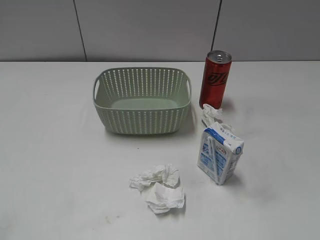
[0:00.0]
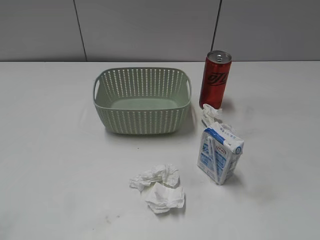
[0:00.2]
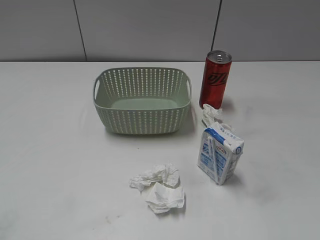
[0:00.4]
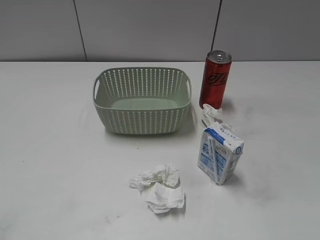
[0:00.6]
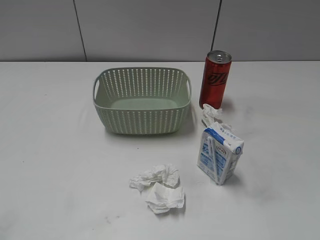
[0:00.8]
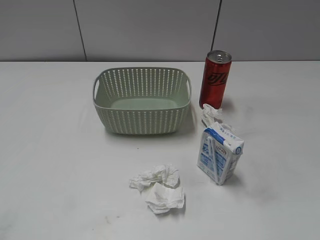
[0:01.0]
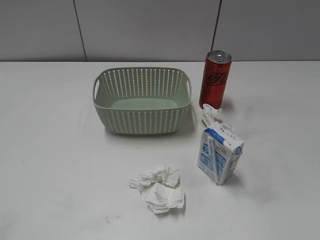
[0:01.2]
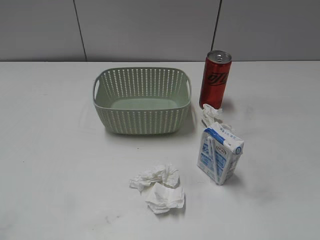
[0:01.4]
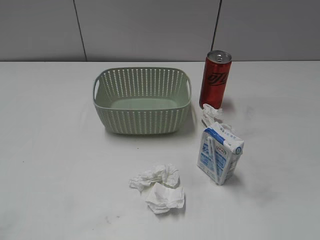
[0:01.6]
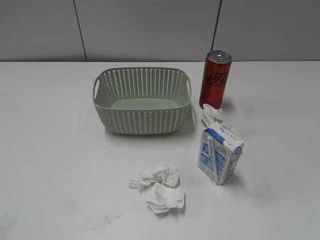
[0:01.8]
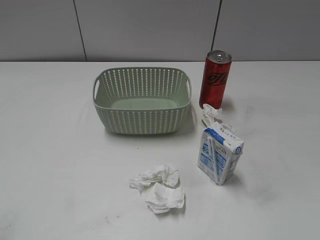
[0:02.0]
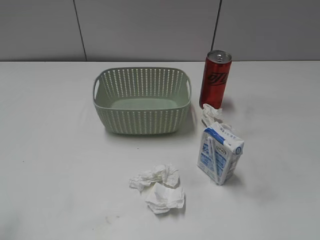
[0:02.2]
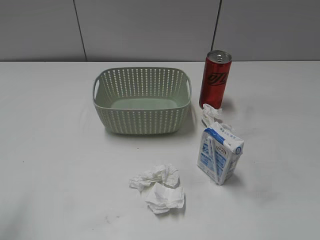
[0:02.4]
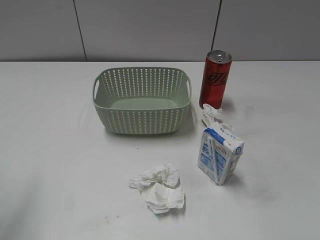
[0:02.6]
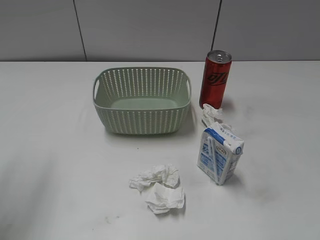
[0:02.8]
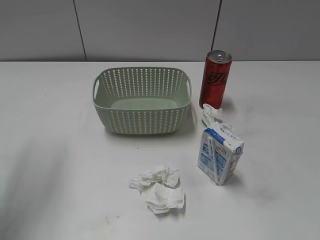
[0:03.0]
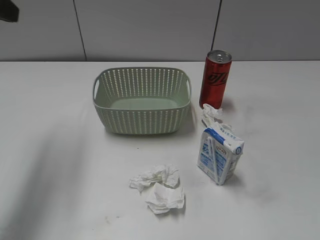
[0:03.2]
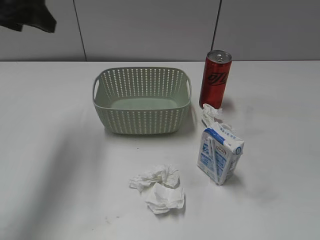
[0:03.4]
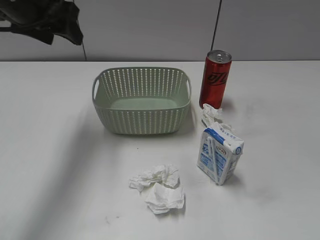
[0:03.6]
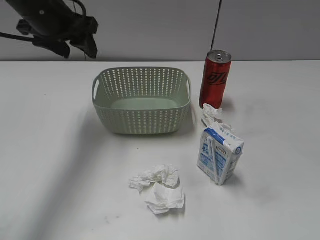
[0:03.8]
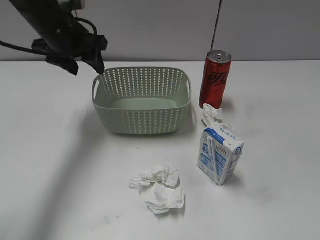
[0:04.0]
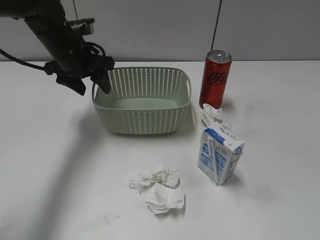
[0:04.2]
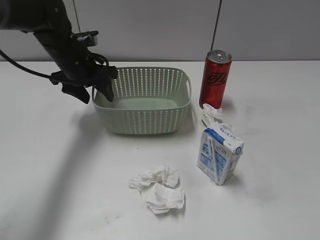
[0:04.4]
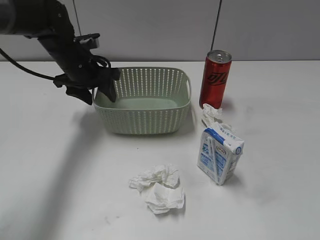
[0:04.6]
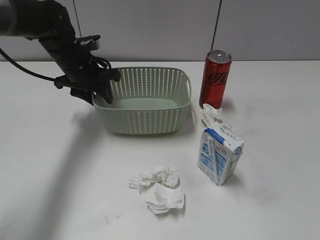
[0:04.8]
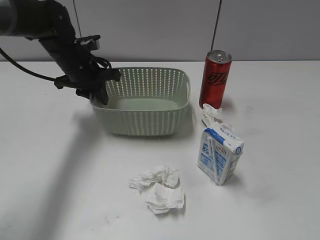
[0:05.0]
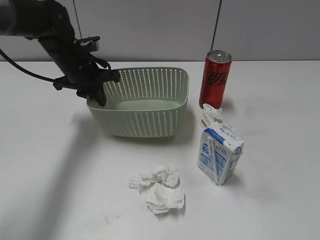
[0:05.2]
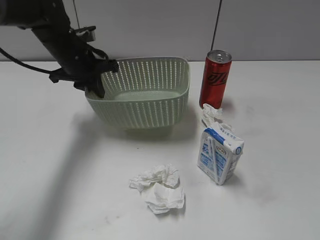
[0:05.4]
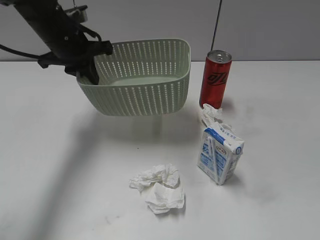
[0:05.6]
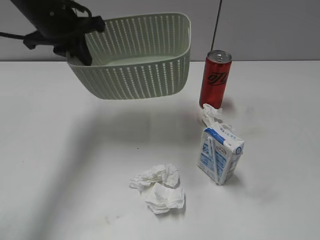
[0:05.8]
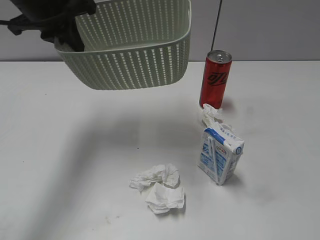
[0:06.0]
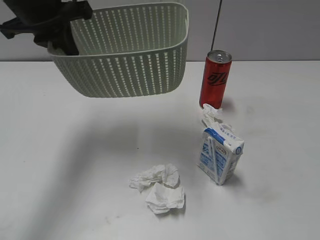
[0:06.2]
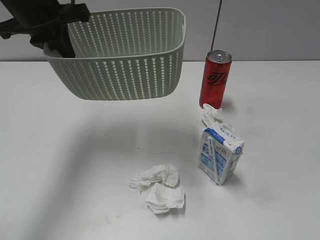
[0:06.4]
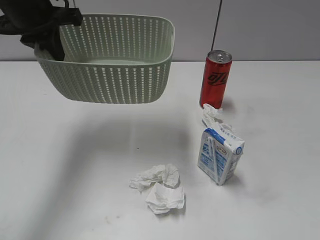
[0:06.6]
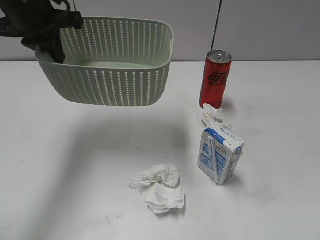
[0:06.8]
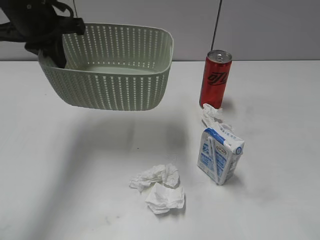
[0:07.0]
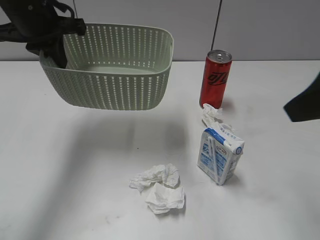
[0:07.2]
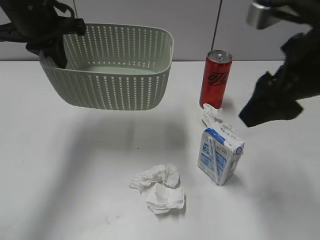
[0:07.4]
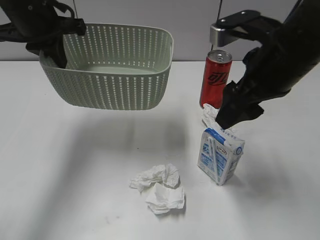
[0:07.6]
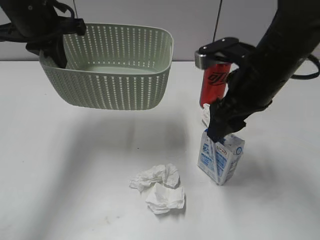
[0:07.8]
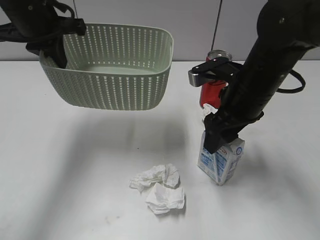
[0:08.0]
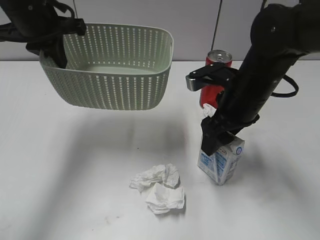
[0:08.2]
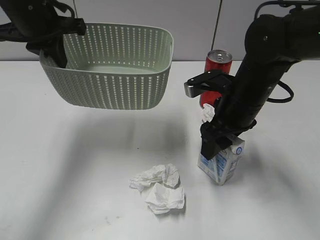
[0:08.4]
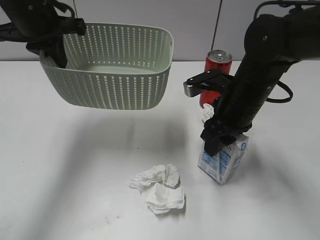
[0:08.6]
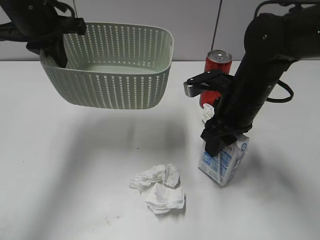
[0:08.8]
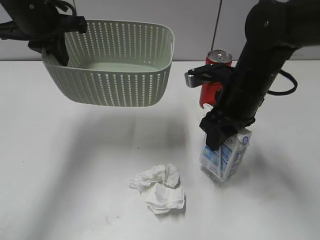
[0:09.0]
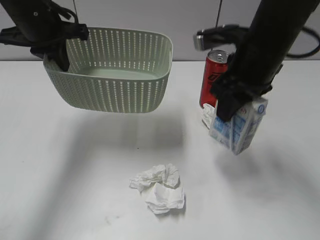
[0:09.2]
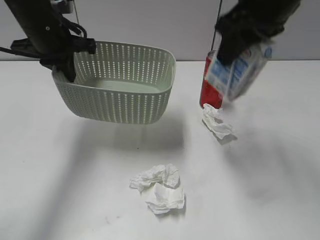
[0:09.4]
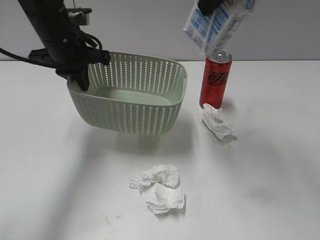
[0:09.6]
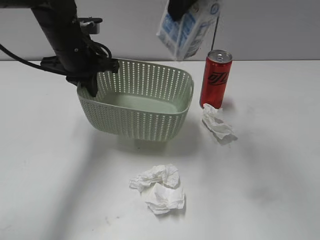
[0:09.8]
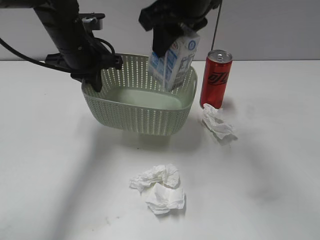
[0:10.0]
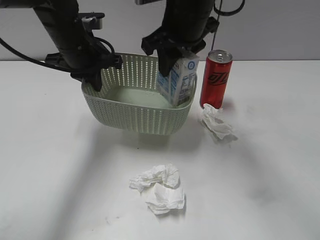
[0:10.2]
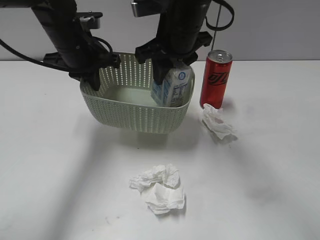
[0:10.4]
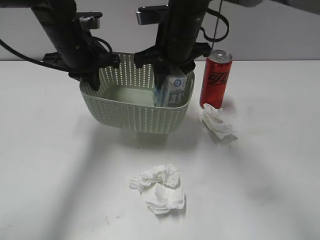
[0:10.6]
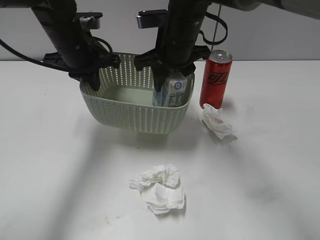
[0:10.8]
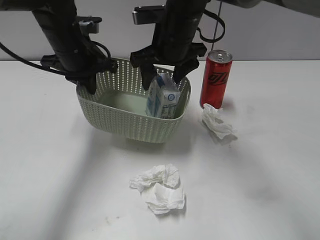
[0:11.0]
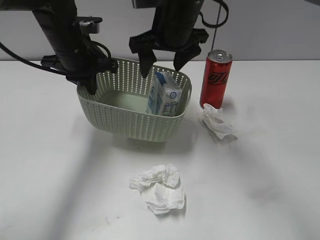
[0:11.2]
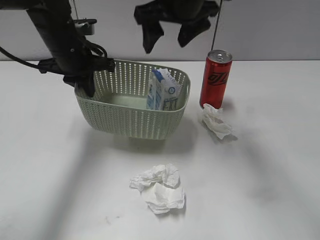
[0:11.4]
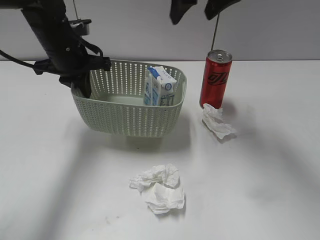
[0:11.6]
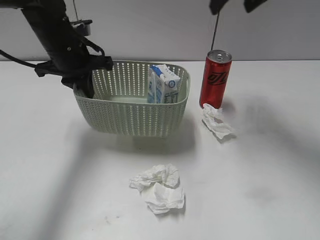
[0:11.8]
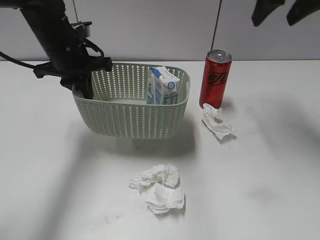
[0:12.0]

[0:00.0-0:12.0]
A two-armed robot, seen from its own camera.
Step, 0:03.2 to 0:05.0: Grasp the basket with left gripper.
Step, 0:05.2 to 0:07.0: Lift the basket with left gripper.
Step, 0:07.2 to 0:08.8: Grasp the milk with right gripper.
Step, 0:09.0 to 0:11.2: Place the milk in the basket with right gripper.
0:01.6 to 0:03.0: The left gripper goes approximately 25 cm forward.
0:03.0 to 0:04.4: The left gripper moves downward, forward and to the right, about 30 cm.
0:04.4 to 0:06.0: The left gripper heads upward, covering some 15 cm, and closes its fingers.
0:06.0 to 0:07.6: The right gripper heads forward and to the left, covering some 30 cm.
0:07.6 to 0:09.0: The right gripper is displaced downward by about 10 cm, and closes up.
0:09.0 to 0:10.4: The left gripper travels downward by some 5 cm. Meanwhile the right gripper goes some 10 cm to the left and forward, and moves approximately 20 cm upward and comes back.
0:10.4 to 0:12.0: The right gripper shifts roughly 20 cm to the right and upward, and opens its fingers.

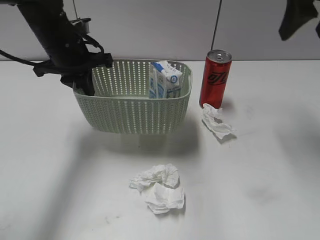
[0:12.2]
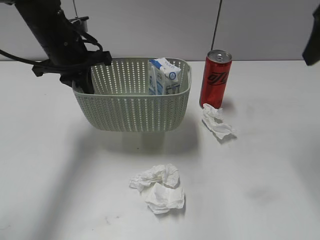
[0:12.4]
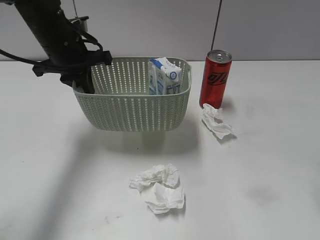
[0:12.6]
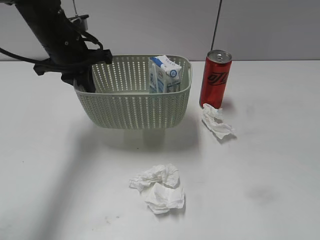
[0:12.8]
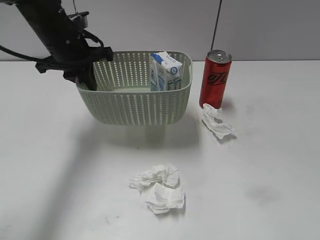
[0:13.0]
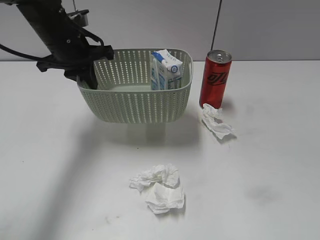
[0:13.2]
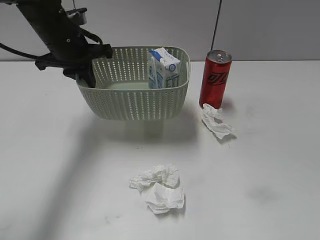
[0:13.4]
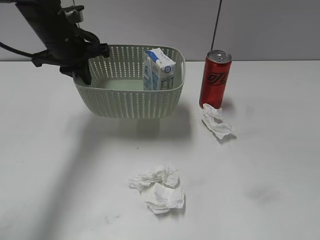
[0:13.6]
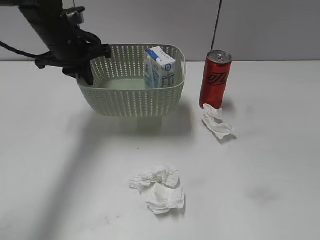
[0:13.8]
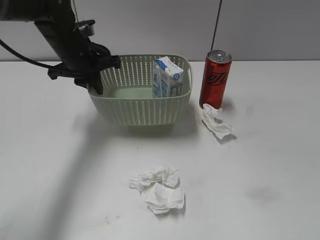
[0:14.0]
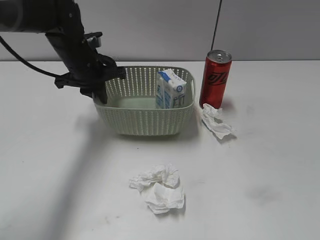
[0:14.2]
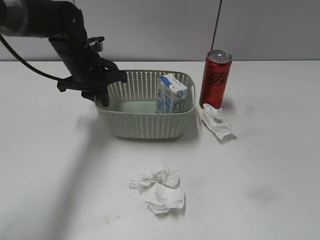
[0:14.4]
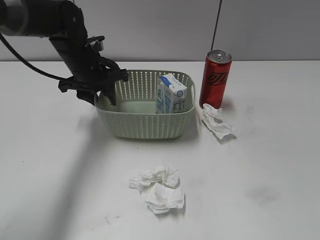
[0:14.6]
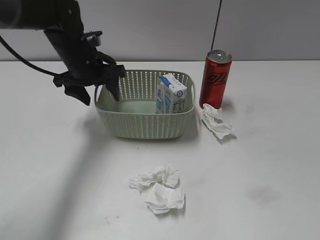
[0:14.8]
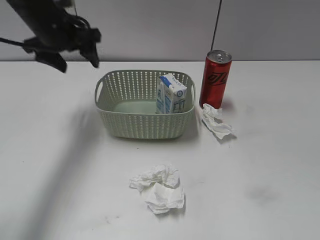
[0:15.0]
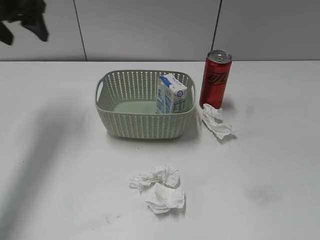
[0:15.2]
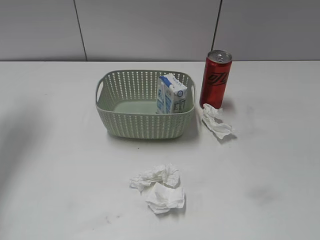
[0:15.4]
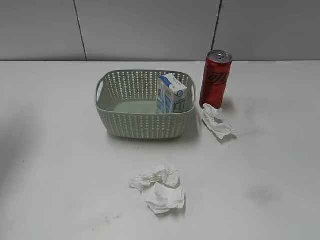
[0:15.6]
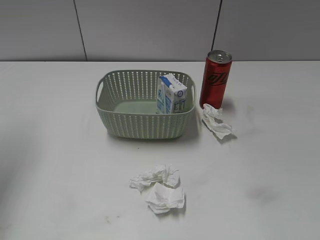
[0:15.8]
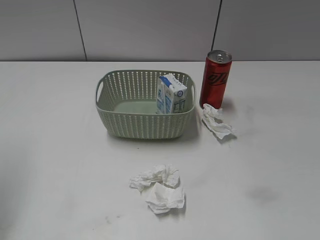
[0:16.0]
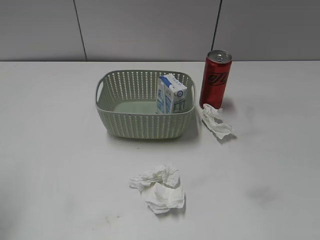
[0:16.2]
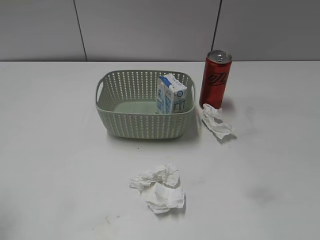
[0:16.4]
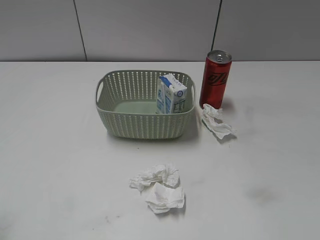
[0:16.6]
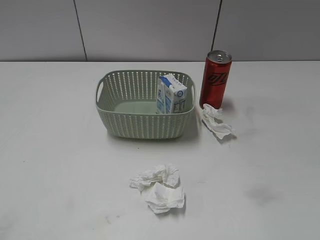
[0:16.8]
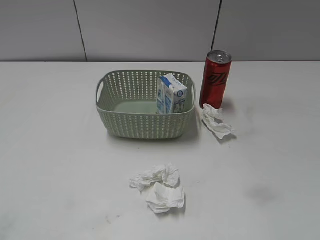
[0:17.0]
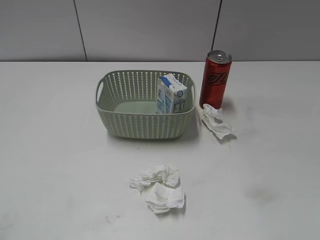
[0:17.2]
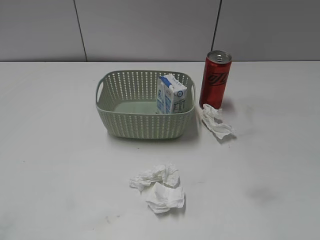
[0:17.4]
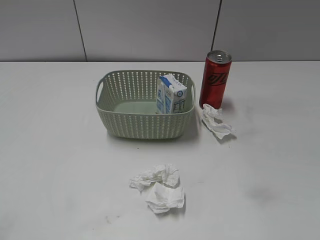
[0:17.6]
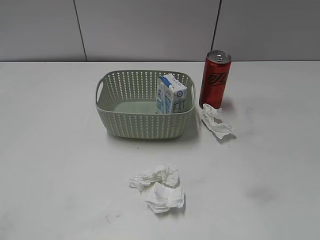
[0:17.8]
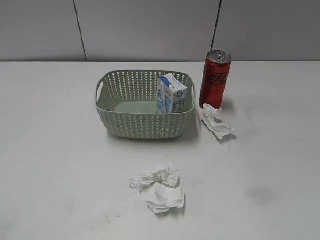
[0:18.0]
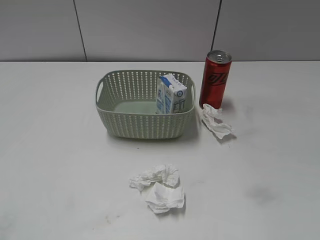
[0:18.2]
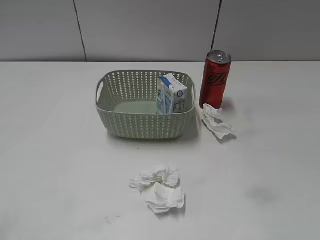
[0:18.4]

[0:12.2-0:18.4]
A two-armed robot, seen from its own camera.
Step, 0:12.2 to 0:14.8: Place the basket on the table with left gripper.
0:12.2 to 0:13.8: The right gripper is displaced backward by some 35 cm.
0:13.8 to 0:15.4: The left gripper goes about 20 cm to the left and upward, and opens up.
0:15.4 to 0:16.8: The left gripper travels backward by about 35 cm.

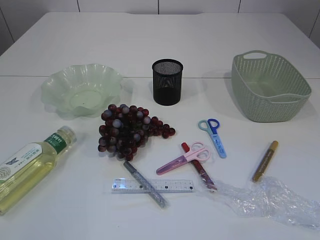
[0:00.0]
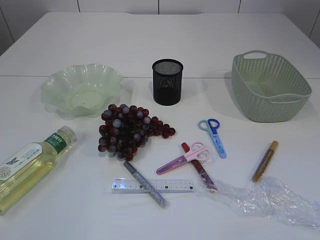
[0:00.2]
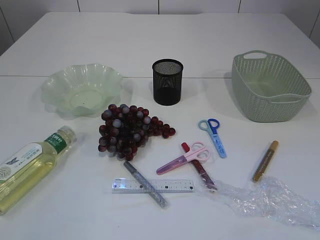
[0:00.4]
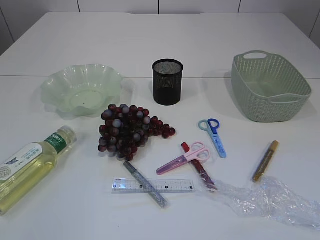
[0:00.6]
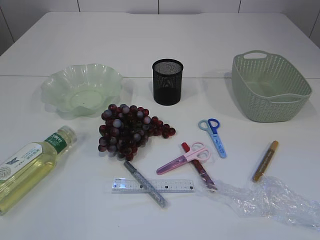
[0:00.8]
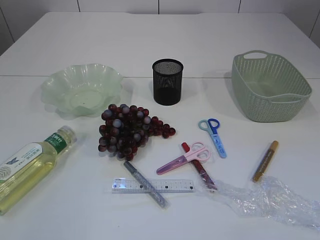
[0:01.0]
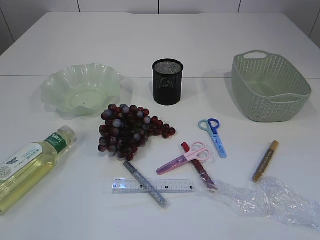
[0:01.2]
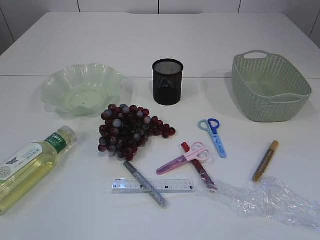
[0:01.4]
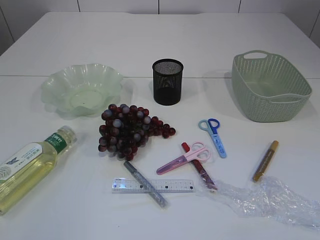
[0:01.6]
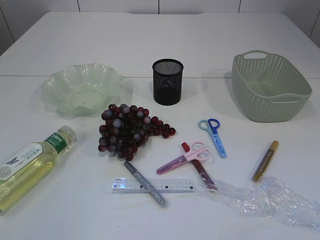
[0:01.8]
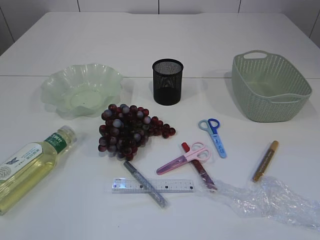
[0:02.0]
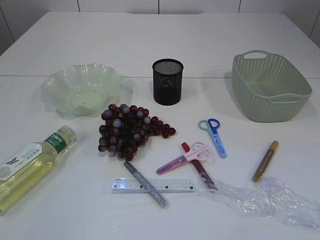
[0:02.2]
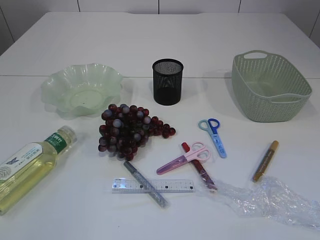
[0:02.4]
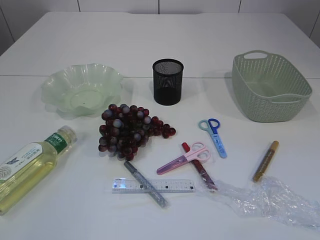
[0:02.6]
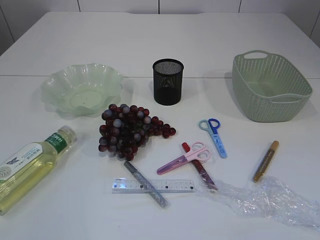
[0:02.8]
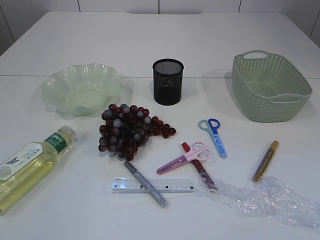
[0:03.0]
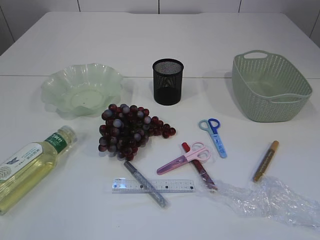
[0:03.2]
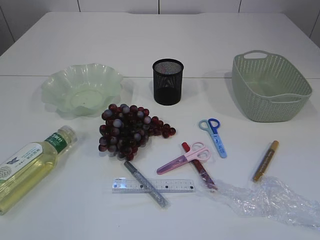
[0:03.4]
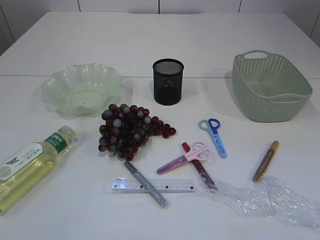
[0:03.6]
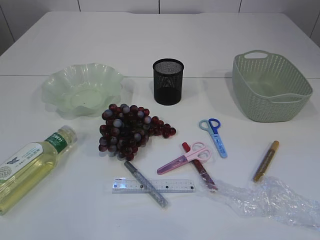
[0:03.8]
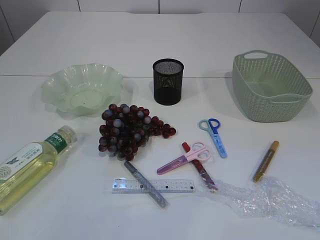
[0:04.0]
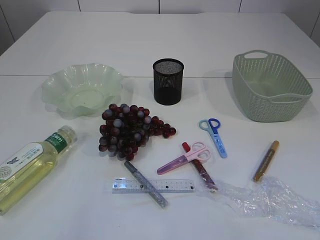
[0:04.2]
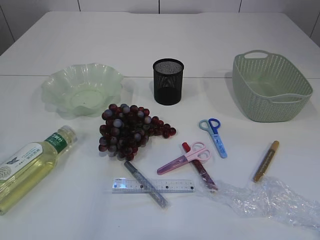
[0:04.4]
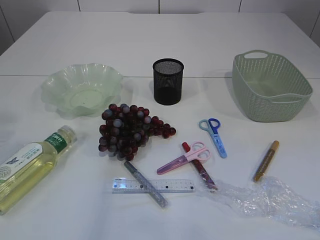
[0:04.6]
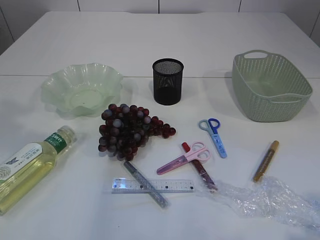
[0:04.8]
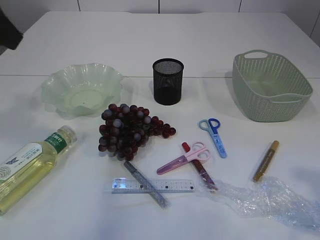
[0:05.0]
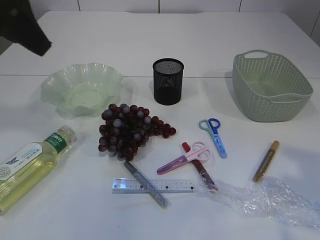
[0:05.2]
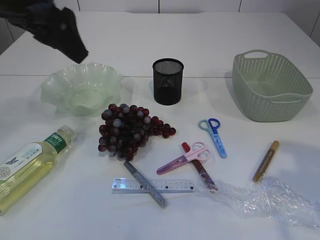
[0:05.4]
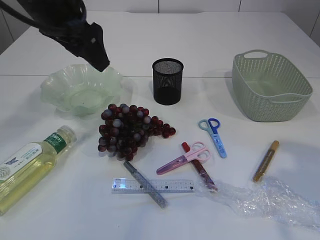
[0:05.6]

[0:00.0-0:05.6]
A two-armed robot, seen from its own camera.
0:01.4 to 0:02.8: Both grippers stay put.
0:04.2 to 0:05.6: The left gripper is displaced forward and to the right by about 30 cm.
